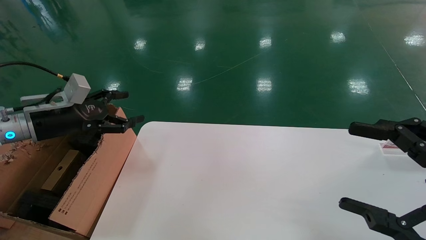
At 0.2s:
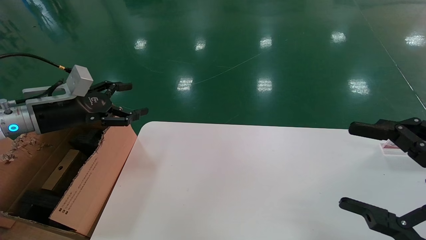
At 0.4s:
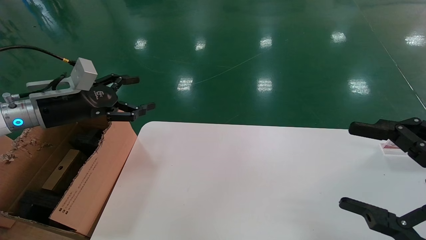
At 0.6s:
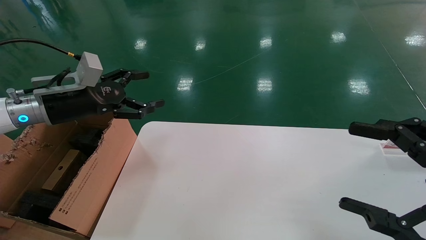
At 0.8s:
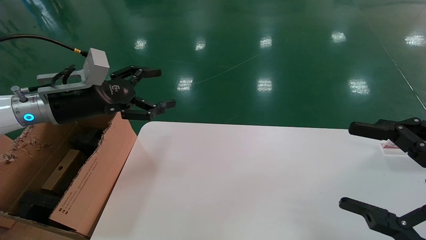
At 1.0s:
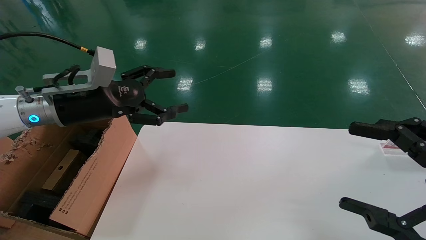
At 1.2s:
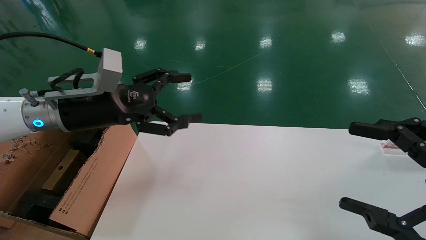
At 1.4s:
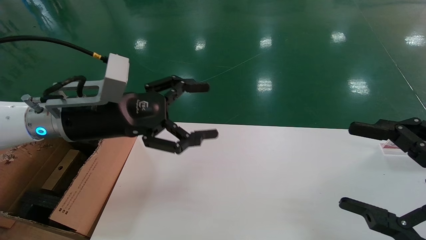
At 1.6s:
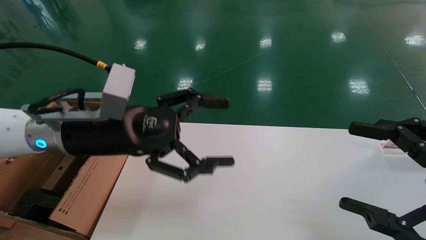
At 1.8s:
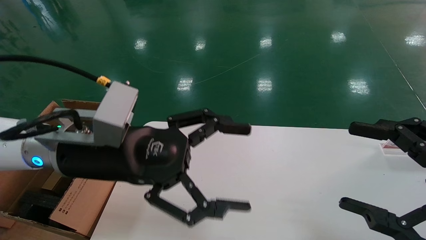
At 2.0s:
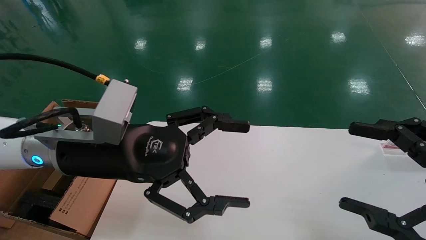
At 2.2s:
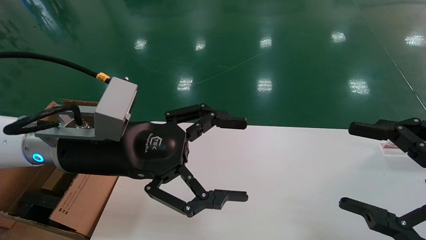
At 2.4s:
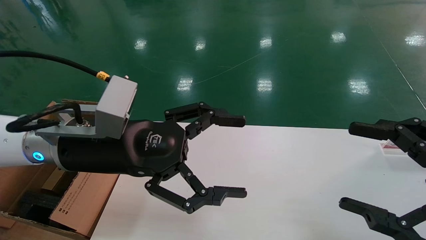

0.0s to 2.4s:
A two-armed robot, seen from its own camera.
Task of the whole recording: put the box on the table into the big box.
0.0s to 1.2s: The left gripper heads to the right, covering roughly 15 cm.
1.2s to 2.4s: The left gripper shifts some 10 cm to the right and backward.
